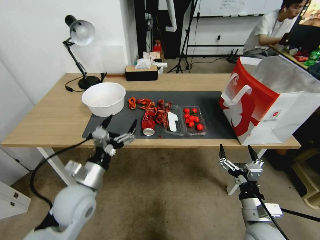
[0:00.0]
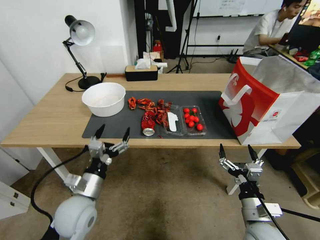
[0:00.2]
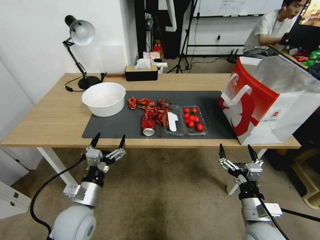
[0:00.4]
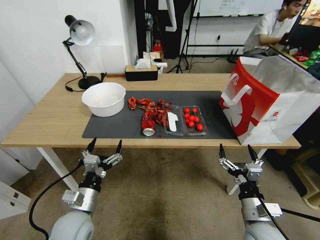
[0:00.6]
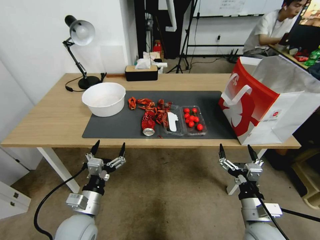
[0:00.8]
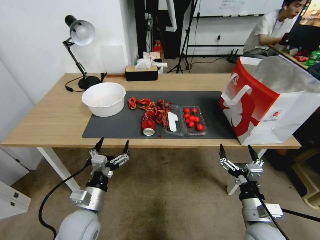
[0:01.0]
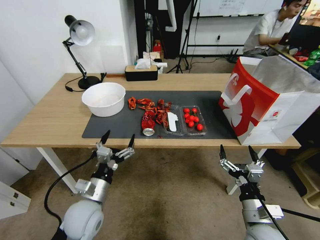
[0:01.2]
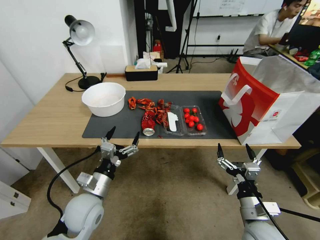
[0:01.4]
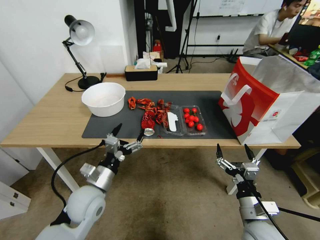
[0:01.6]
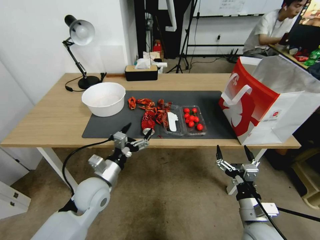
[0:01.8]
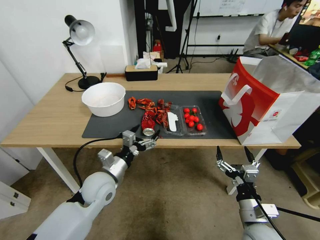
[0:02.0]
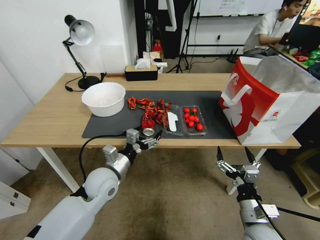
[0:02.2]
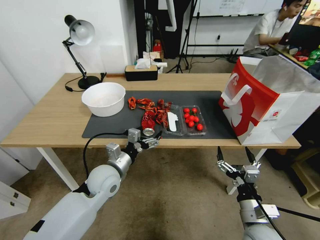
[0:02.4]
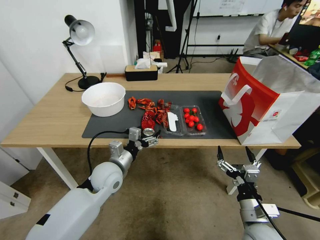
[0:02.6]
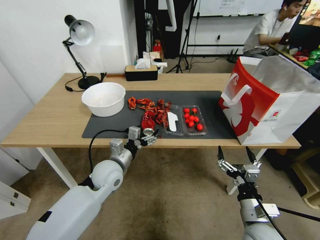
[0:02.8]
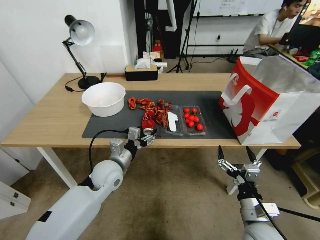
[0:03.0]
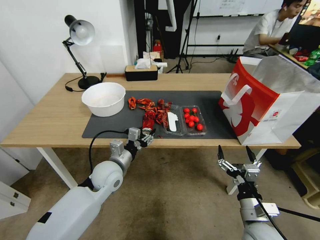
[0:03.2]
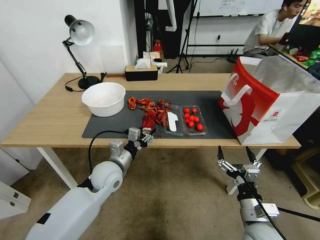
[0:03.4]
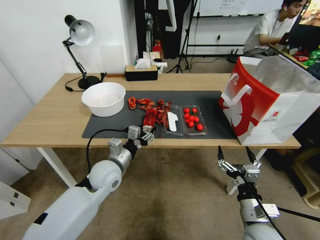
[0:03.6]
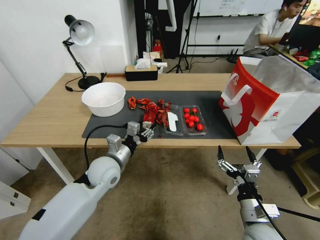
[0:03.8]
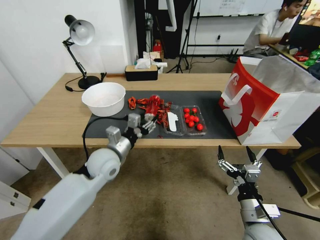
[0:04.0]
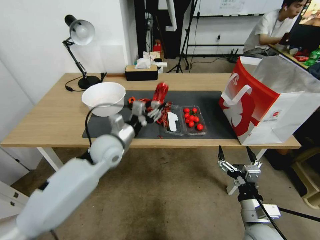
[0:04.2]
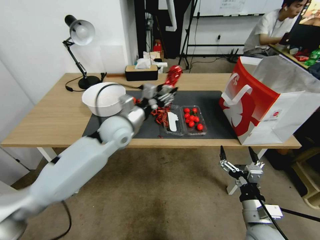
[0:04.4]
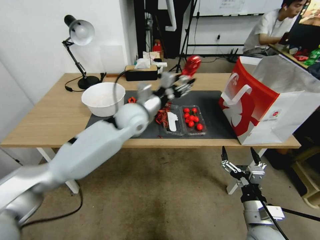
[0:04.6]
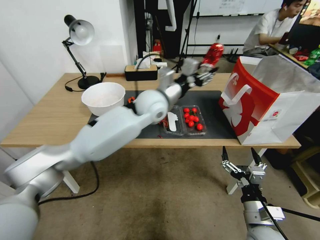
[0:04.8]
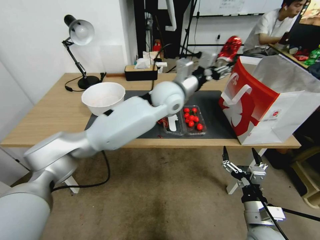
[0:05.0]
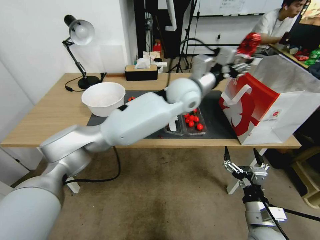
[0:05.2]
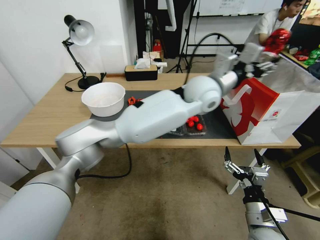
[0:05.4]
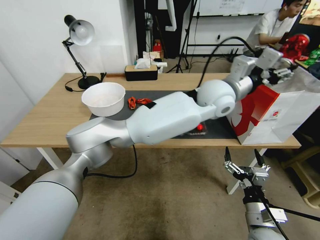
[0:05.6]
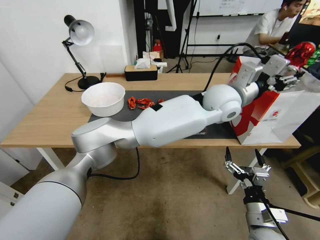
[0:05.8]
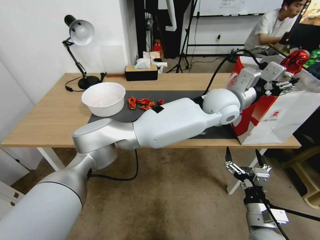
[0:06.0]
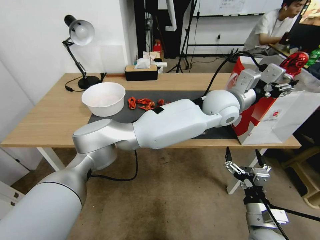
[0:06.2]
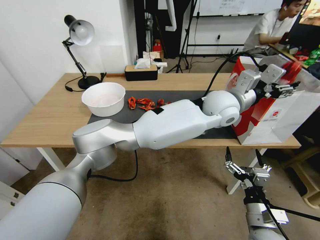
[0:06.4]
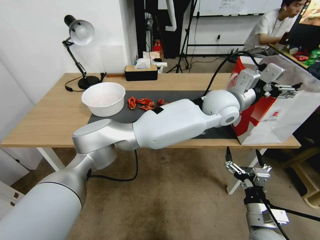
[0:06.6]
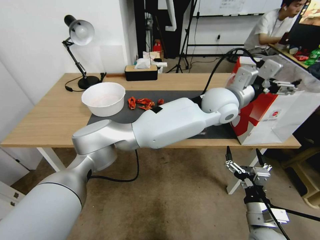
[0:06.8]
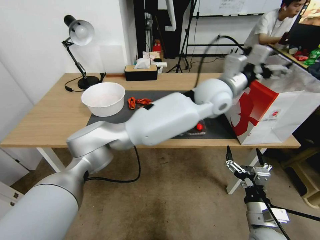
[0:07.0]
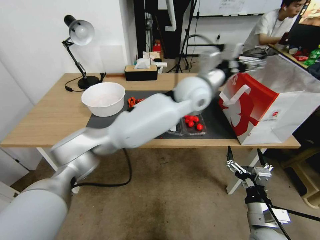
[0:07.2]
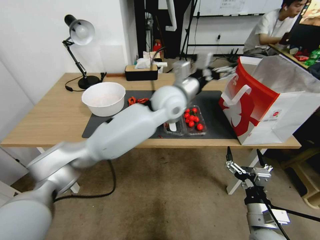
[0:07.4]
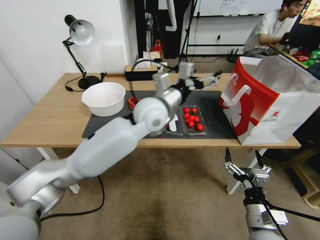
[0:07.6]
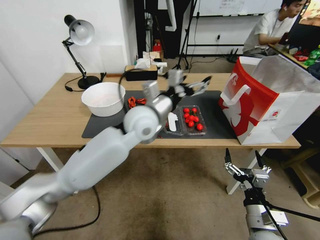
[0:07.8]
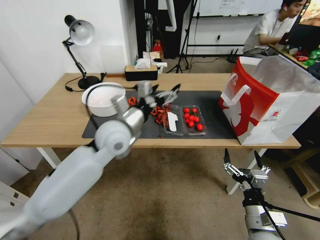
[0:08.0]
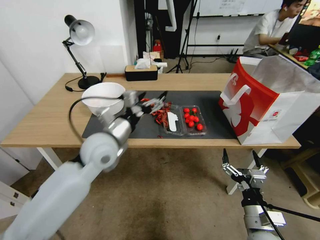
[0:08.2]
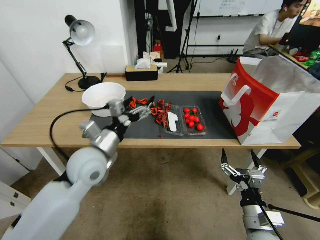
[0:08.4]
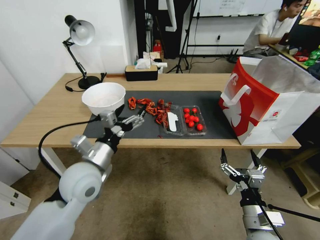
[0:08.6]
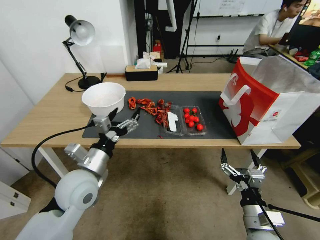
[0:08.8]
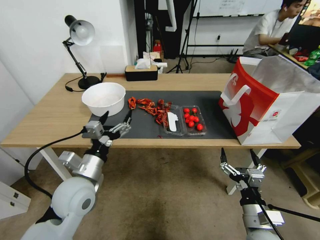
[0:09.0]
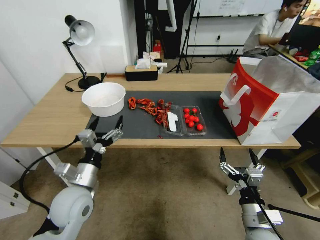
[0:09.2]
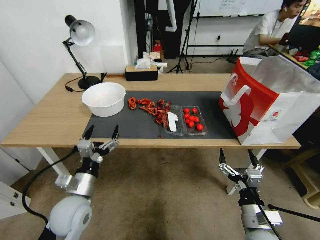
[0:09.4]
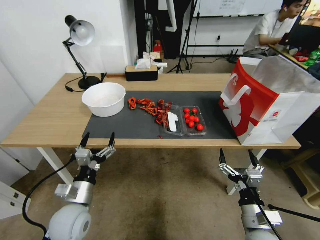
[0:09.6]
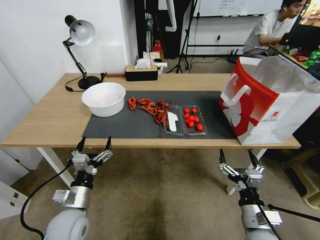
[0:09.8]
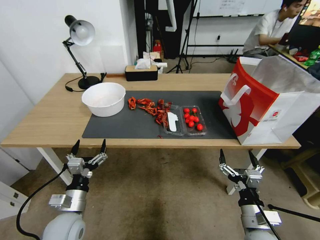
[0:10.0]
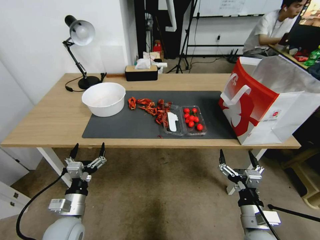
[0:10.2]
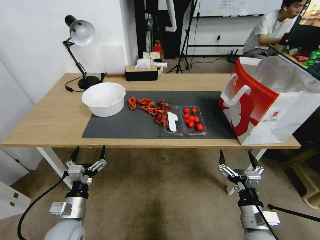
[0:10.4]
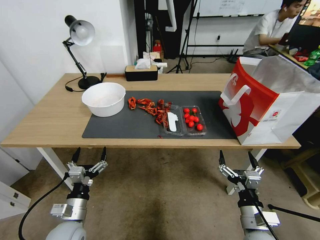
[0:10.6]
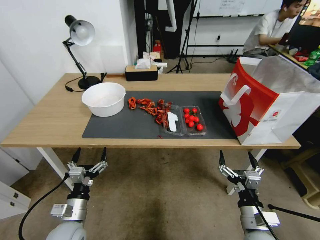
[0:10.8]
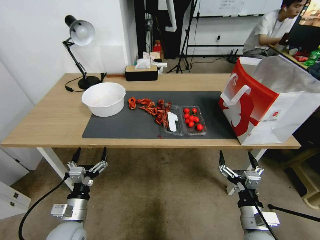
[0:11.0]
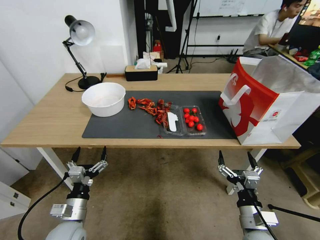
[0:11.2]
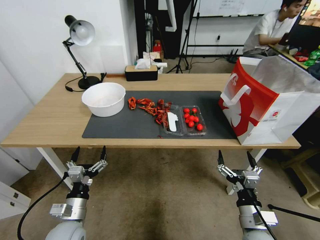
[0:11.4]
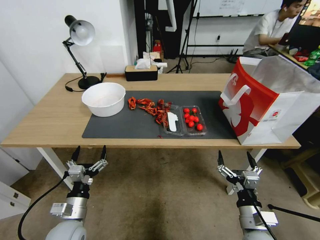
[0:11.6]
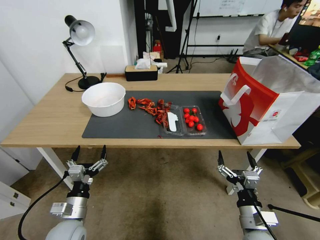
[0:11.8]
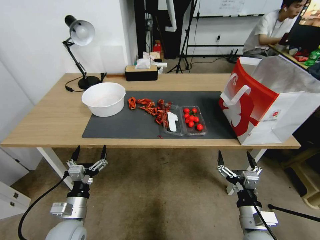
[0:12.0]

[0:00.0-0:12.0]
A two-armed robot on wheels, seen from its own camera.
0:01.6 to 0:03.0: The left gripper shifts approximately 10 cm forward.
0:03.0 to 0:04.4: The left gripper shifts about 15 cm upward and forward.
0:04.4 to 0:06.0: The left gripper moves to the right, roughly 30 cm.
0:06.0 to 0:07.6: The left gripper moves to the left, about 20 cm, and opens its fingers.
0:07.6 to 0:09.0: The left gripper goes about 30 cm to the left, backward and downward.
0:09.0 to 0:10.4: The left gripper heads downward and backward, covering roughly 15 cm.
0:10.4 to 0:12.0: Both grippers stay put.
